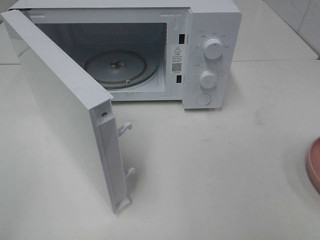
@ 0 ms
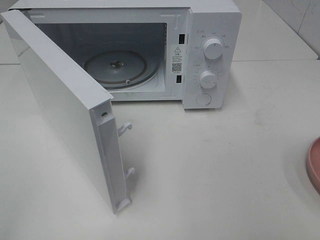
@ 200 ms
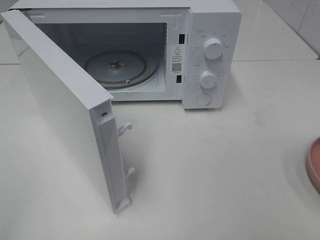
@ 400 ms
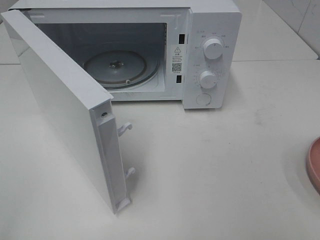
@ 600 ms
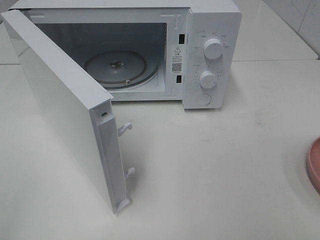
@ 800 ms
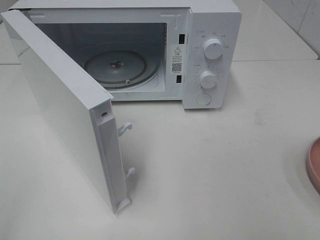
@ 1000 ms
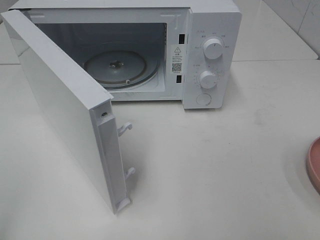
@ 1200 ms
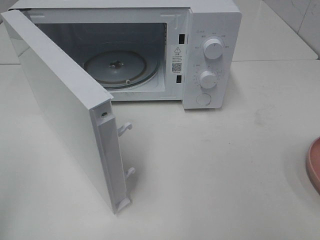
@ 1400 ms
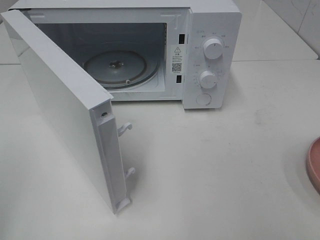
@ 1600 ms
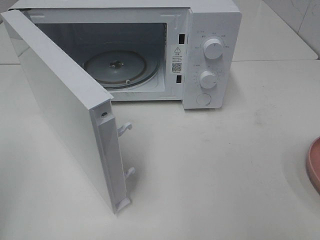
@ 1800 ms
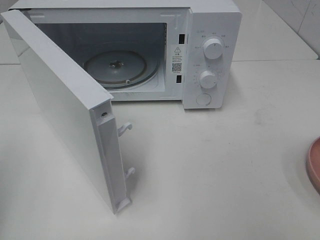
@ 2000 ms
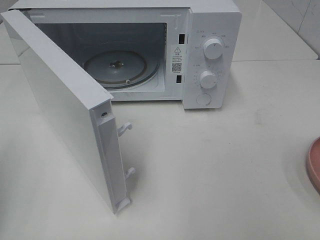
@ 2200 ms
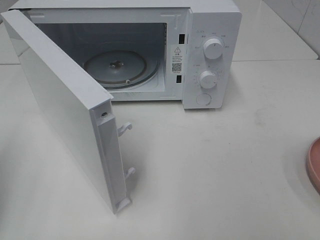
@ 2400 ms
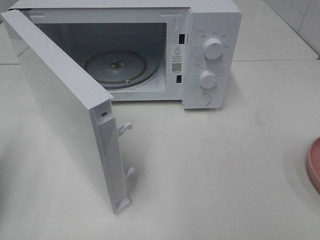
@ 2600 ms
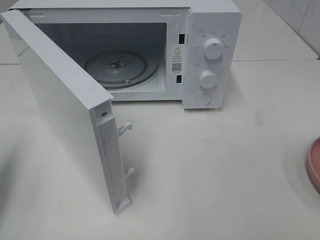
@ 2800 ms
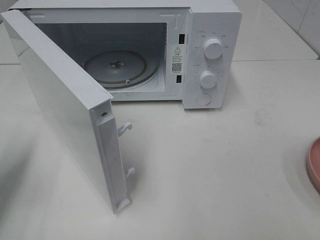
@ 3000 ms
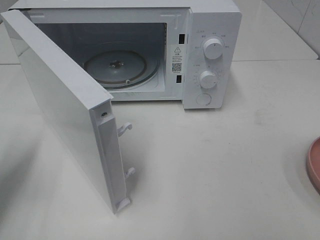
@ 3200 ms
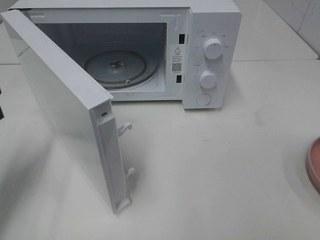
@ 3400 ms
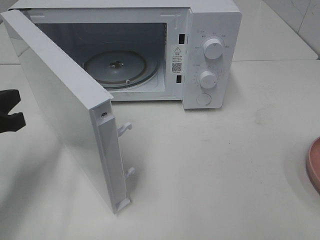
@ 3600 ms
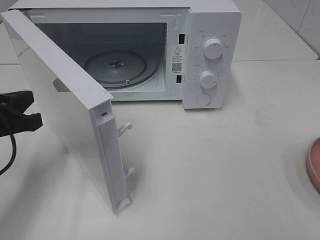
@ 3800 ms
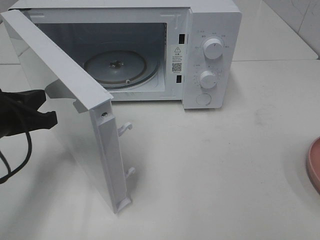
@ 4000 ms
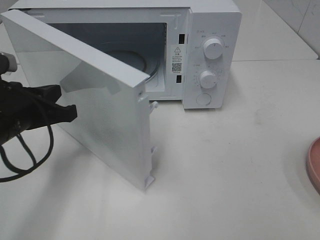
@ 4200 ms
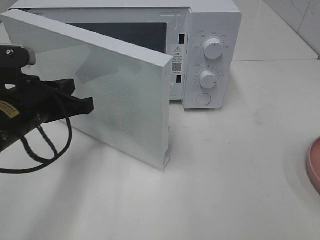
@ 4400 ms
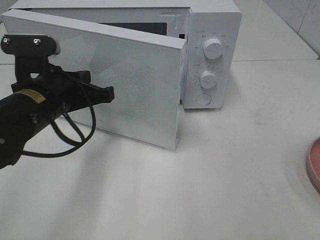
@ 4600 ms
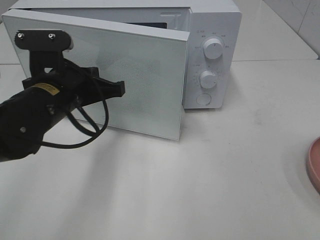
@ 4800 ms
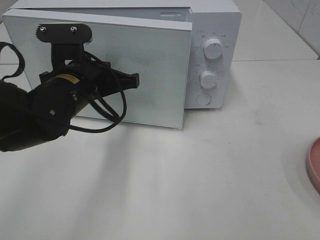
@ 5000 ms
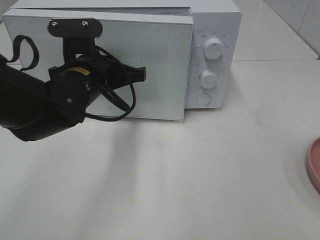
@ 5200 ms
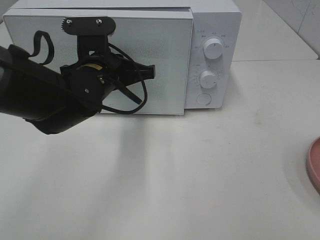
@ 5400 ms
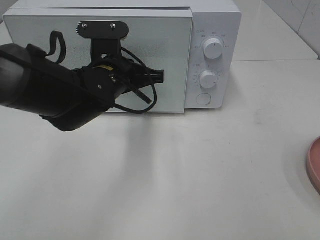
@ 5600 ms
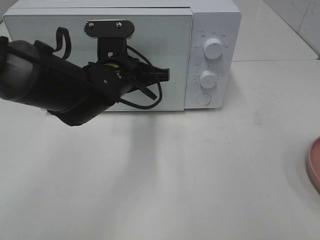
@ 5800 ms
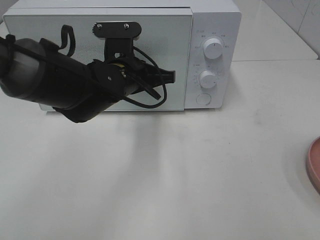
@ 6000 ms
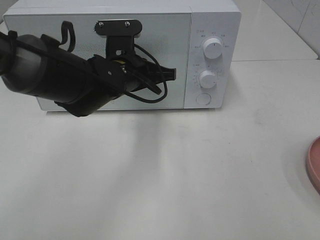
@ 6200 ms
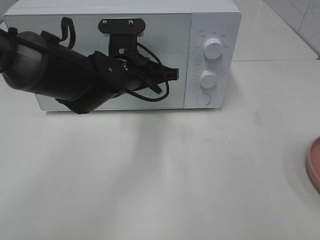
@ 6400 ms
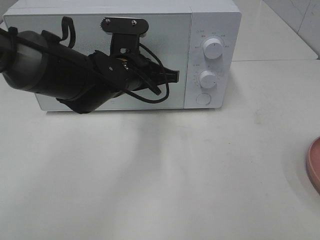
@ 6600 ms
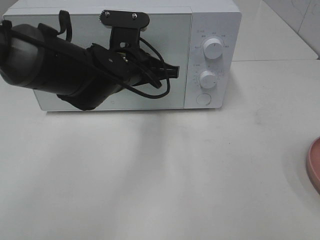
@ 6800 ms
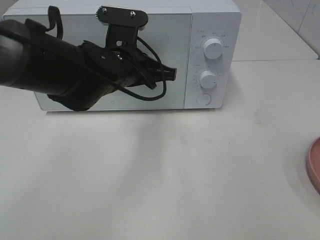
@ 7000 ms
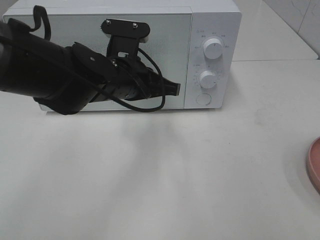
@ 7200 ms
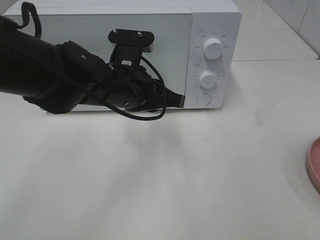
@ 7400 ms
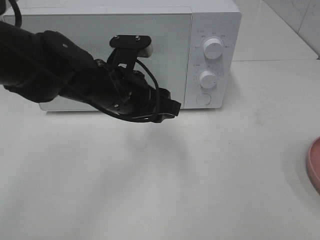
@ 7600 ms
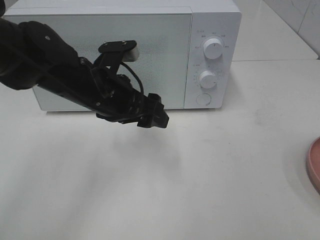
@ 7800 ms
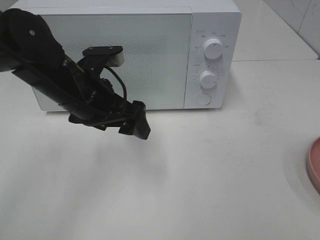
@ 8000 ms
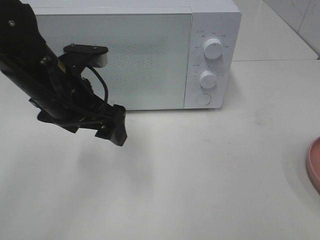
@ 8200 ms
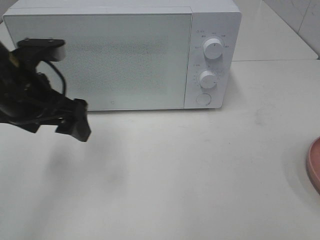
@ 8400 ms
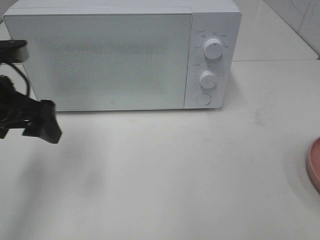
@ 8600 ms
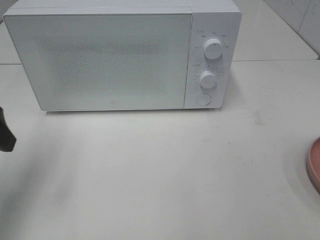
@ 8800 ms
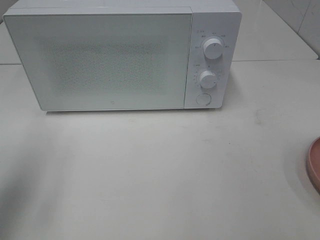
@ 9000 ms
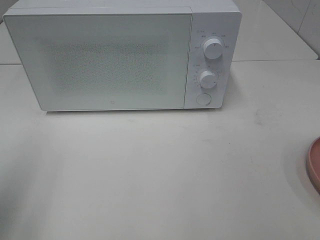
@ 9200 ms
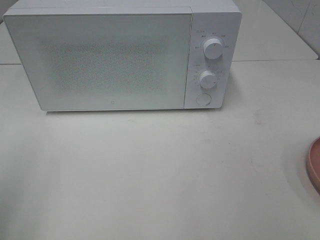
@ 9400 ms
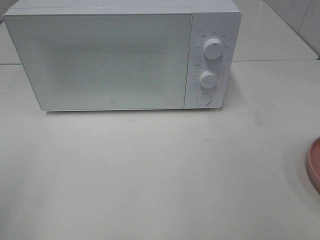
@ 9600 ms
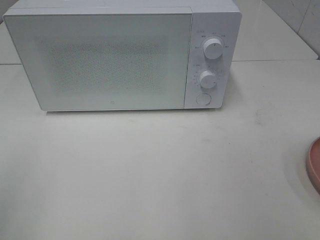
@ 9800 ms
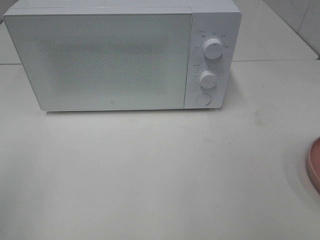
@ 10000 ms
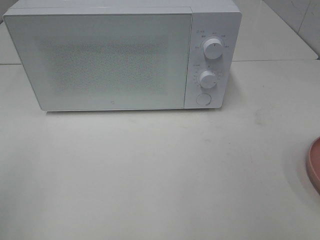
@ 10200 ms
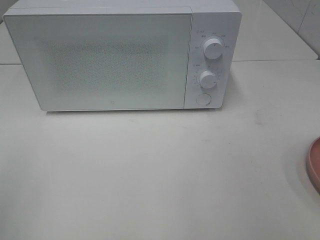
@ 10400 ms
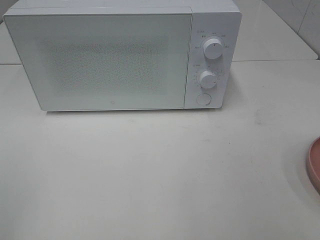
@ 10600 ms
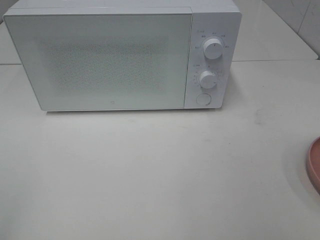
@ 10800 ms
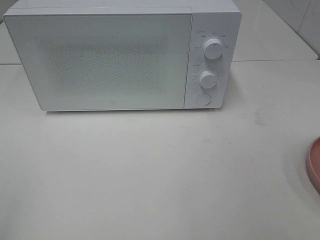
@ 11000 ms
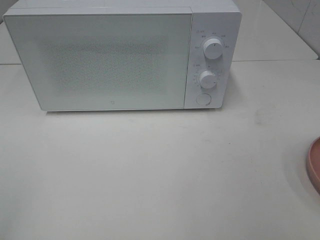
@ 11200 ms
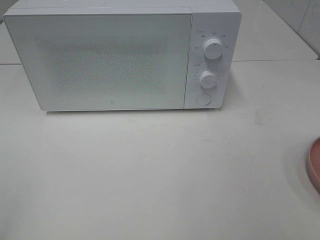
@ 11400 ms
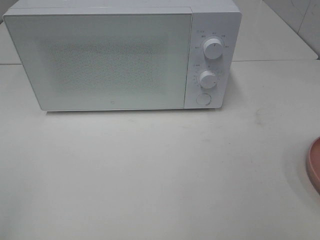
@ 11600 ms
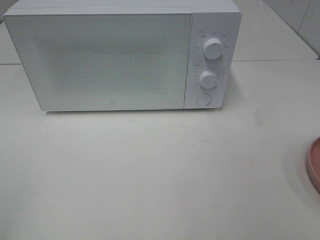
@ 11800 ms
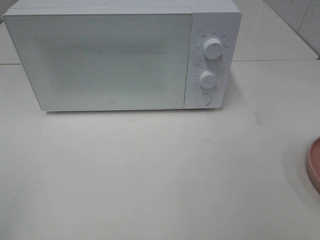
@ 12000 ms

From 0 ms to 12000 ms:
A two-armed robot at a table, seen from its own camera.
Task of the whole recording: Heat the burger.
Step, from 0 ms to 7000 ms: Left hand: close the microwave door.
From 1600 ms to 3000 ms: The left gripper heads forward and downward, covering approximately 15 cm.
From 3000 ms to 4400 ms: The left gripper moves to the right and forward, about 15 cm.
From 4400 ms to 6000 ms: The left gripper travels to the right and forward by roughly 15 cm.
From 6000 ms to 7600 ms: The left gripper shifts by about 5 cm, and opens its fingers.
From 7600 ms to 9000 ms: The left gripper heads to the left and backward, covering some 25 cm, and opens up.
From 9000 ms to 10400 ms: The left gripper shifts roughly 10 cm backward.

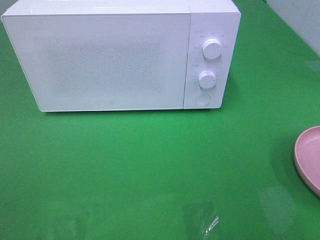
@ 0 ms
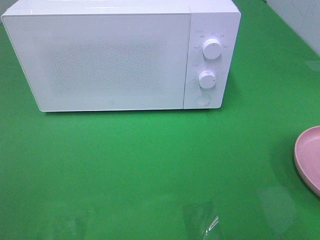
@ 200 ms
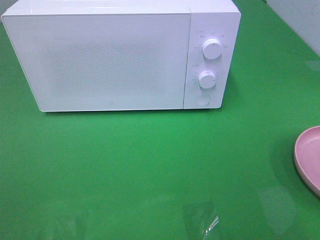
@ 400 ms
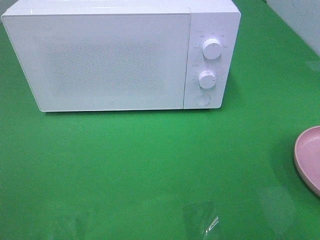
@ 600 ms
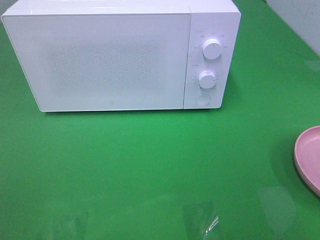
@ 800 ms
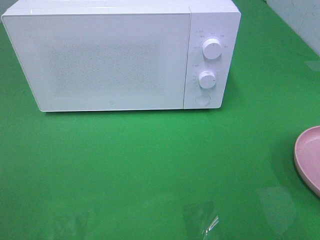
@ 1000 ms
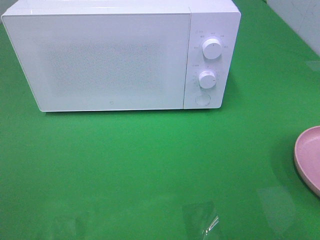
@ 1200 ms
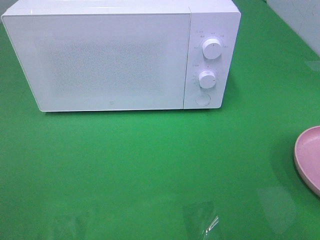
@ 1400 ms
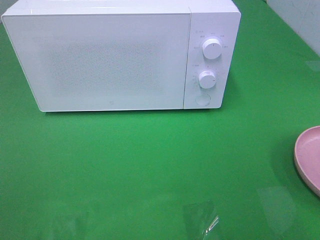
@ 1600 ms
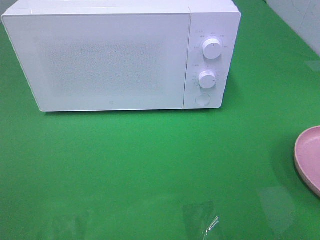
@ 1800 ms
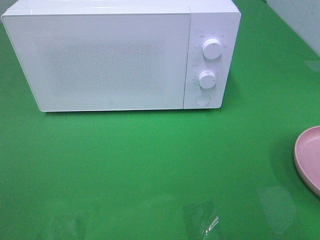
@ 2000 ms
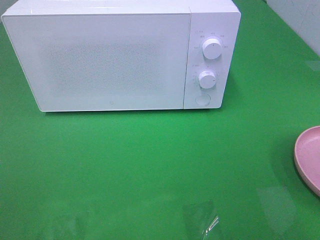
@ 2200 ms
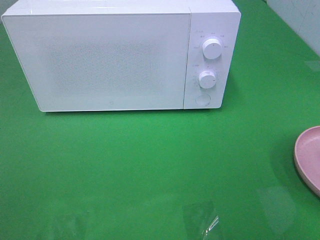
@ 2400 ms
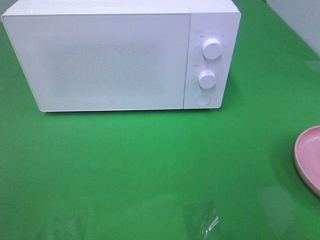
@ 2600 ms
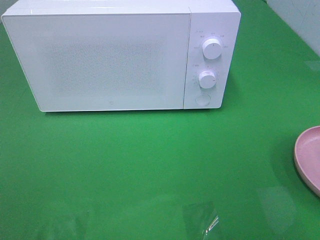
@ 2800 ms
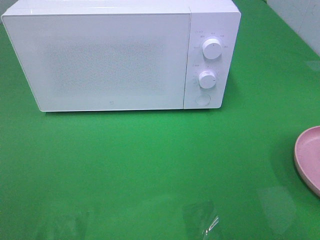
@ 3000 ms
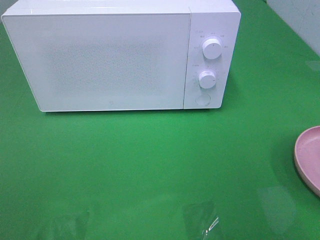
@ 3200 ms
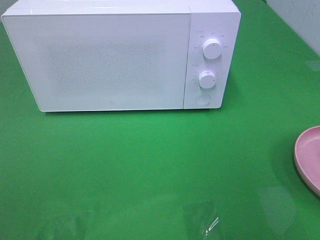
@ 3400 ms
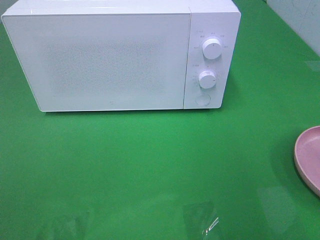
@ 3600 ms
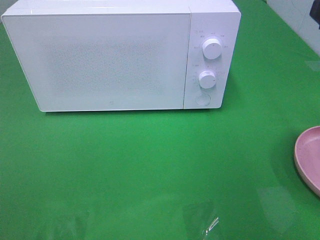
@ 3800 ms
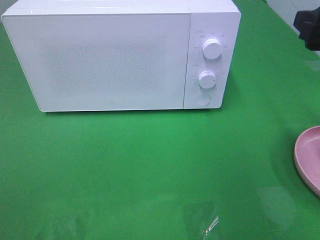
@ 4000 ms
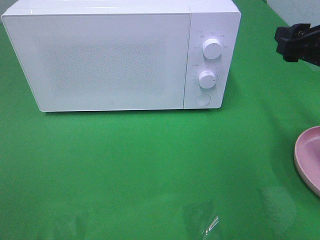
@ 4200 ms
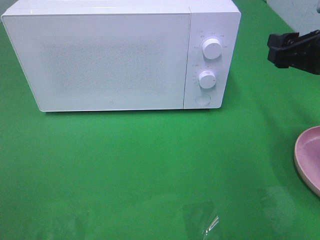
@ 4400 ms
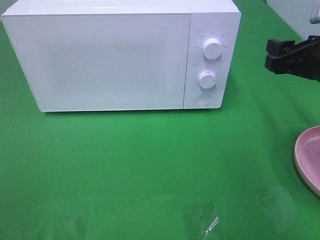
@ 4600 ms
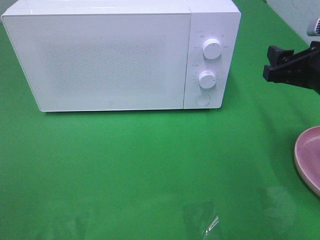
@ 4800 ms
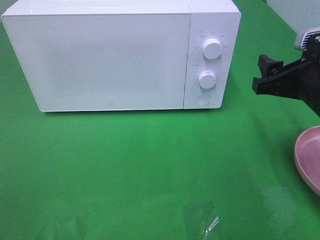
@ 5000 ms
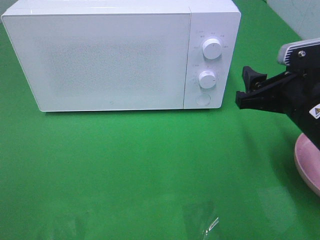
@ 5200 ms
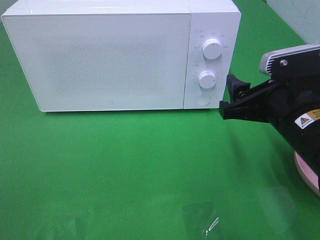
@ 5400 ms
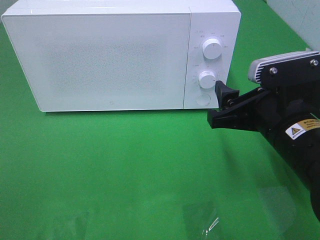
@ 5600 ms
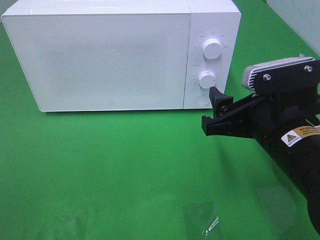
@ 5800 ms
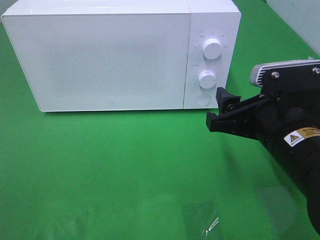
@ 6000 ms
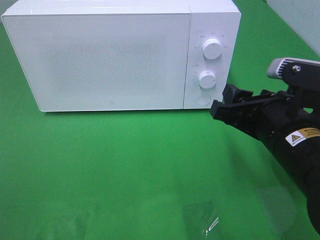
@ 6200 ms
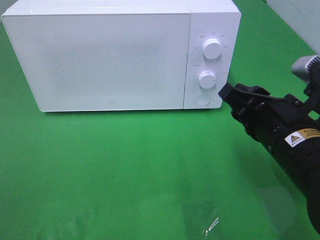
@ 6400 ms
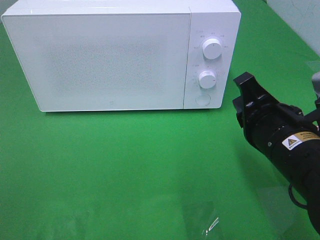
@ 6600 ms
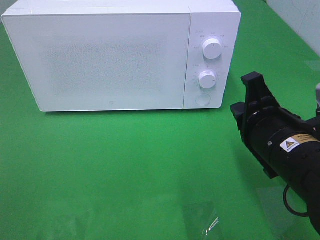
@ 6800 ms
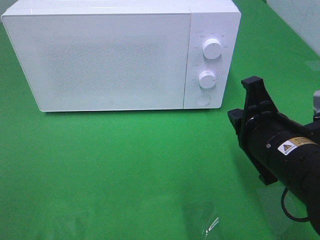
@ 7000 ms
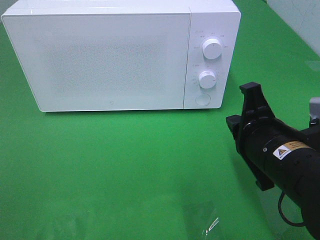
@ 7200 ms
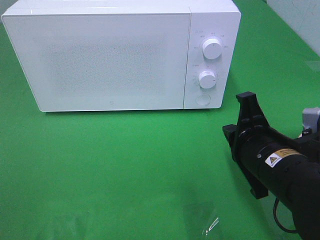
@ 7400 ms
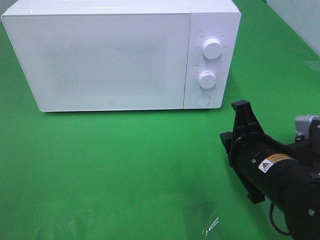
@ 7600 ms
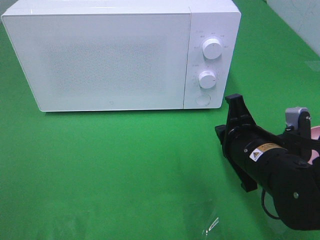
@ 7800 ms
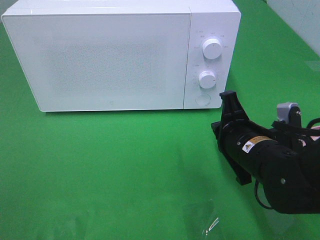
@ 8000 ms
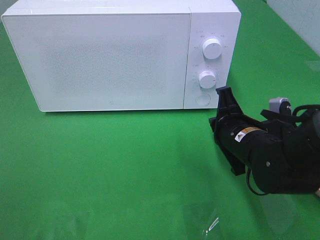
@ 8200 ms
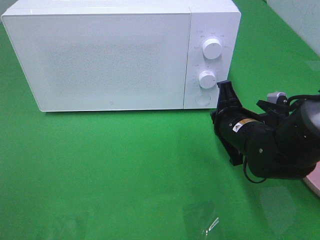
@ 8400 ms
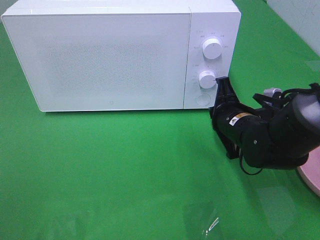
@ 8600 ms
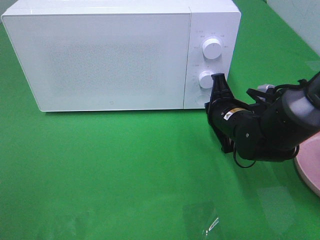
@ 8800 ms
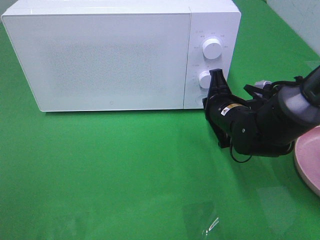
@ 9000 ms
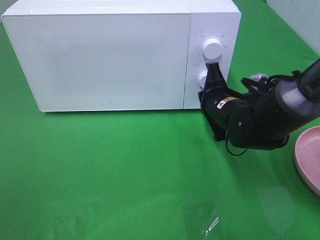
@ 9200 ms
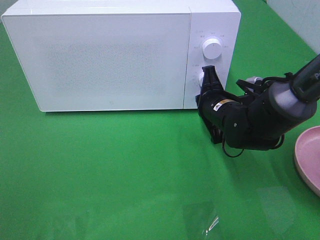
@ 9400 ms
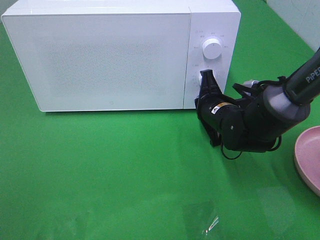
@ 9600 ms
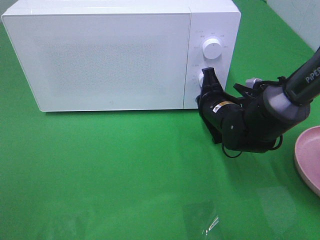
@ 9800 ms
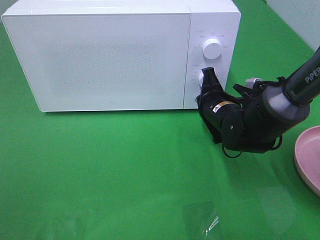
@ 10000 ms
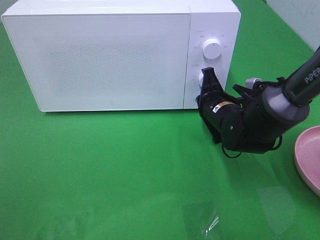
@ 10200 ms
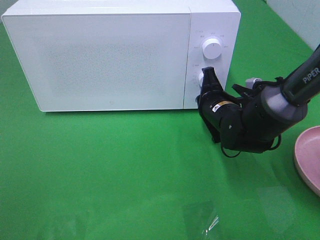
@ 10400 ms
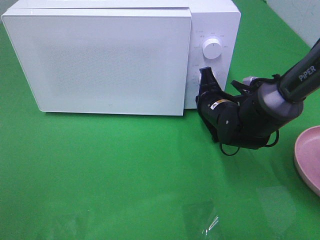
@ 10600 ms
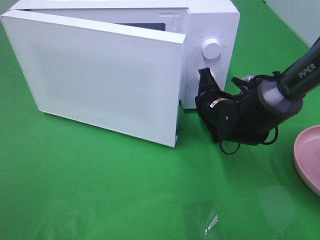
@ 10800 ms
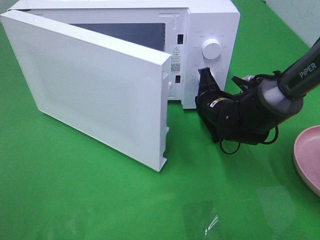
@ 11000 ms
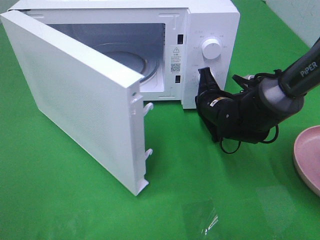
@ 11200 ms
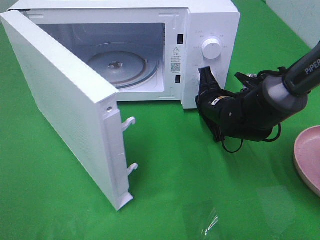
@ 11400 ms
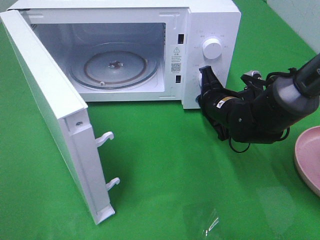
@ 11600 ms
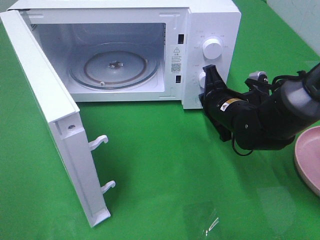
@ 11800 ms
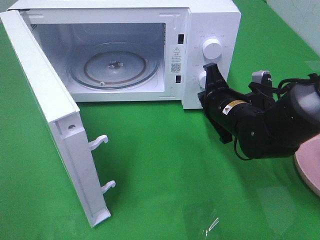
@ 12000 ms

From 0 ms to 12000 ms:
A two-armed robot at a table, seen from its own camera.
Task of the whole recording: Heat the burger.
Step, from 0 ms to 11800 ms: Right hand: press the switch.
From 0 ms to 1600 ms: Both grippers stay put.
From 3000 ms to 4400 ms: The right gripper travels forward and downward by some 25 cm.
From 4400 ms to 6000 ms: The right gripper travels to the left and backward by approximately 15 cm.
From 6000 ms to 7600 ms: The right gripper moves downward, approximately 5 cm, and closes up.
From 7600 ms to 9000 ms: The right gripper travels forward by approximately 15 cm.
From 9000 ms to 10400 ms: The grippers make only small movements.
